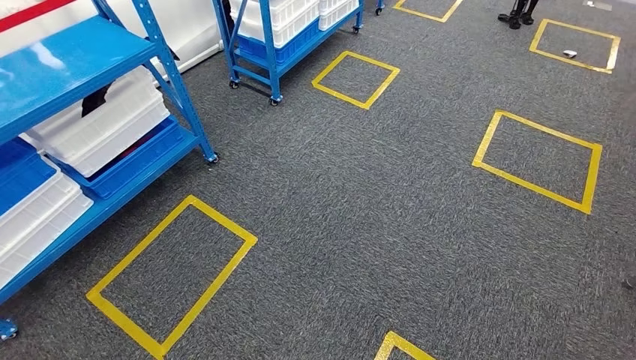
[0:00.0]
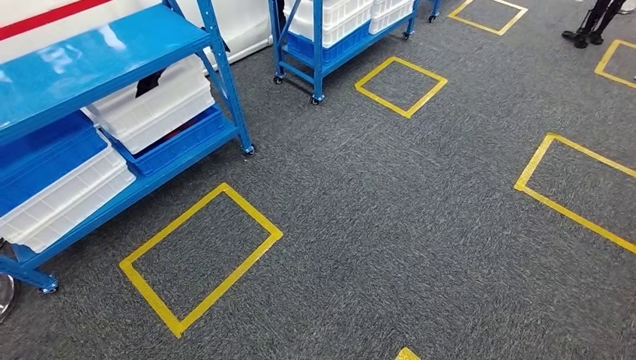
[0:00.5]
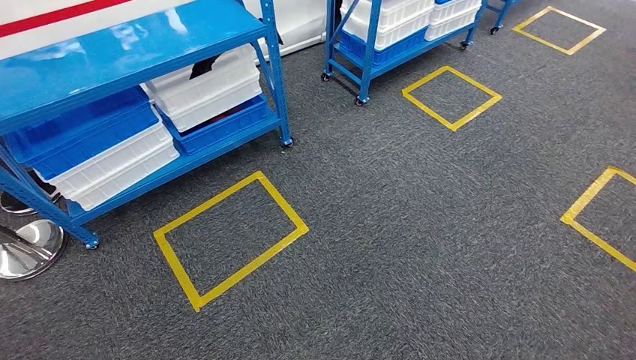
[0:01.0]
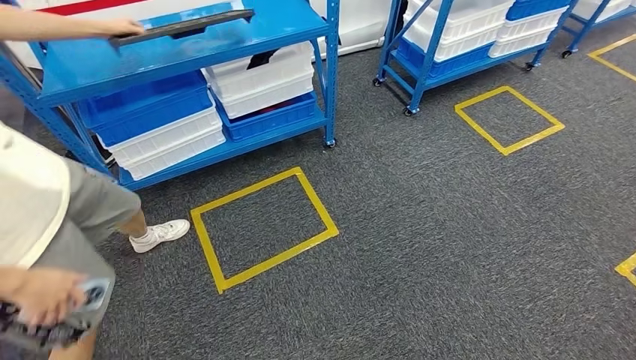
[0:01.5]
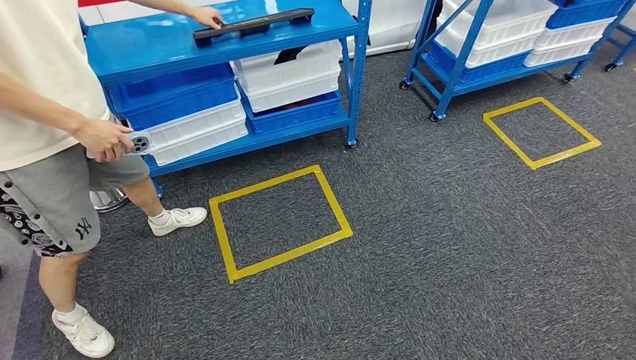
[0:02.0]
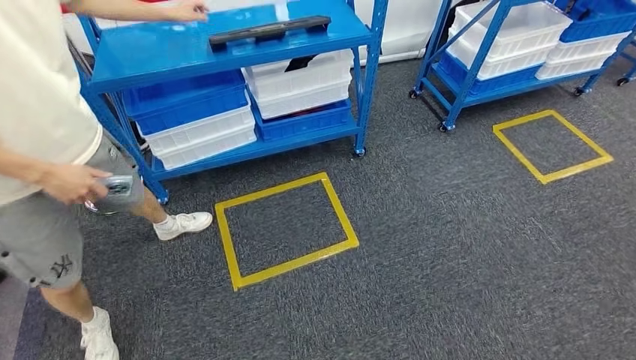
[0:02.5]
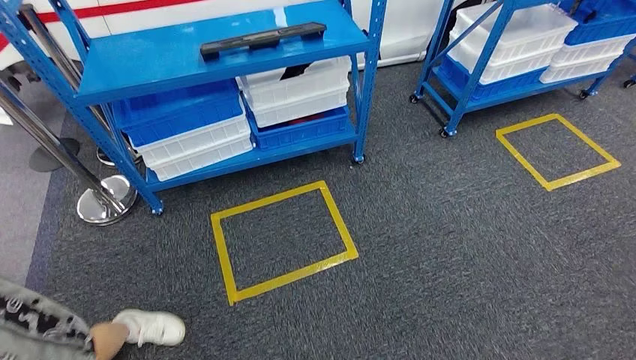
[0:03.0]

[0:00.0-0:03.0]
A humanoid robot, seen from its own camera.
Step, 0:00.0 to 0:03.0: Move to the initial position of the shelf.
